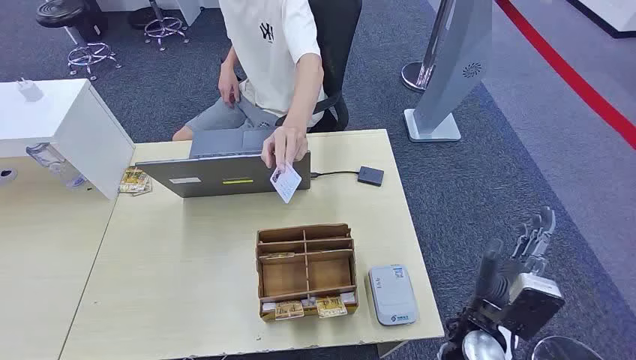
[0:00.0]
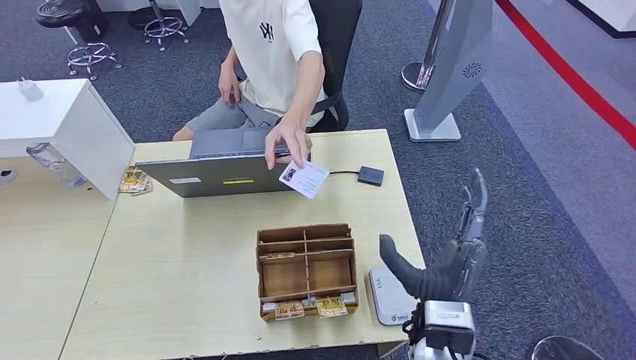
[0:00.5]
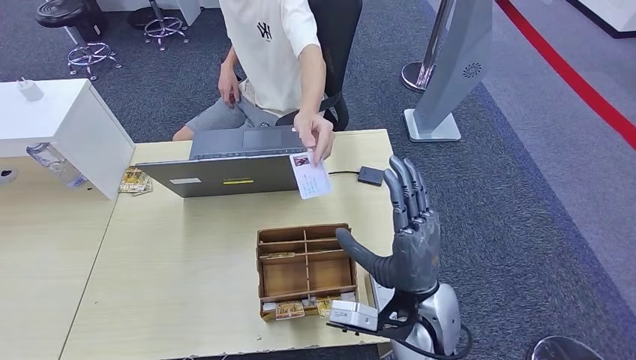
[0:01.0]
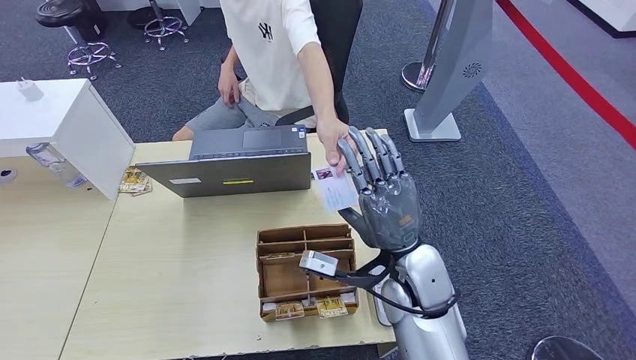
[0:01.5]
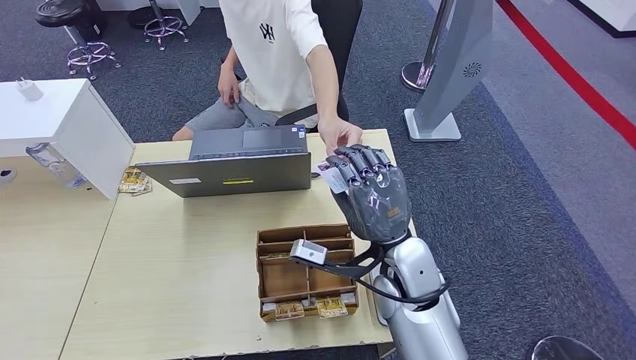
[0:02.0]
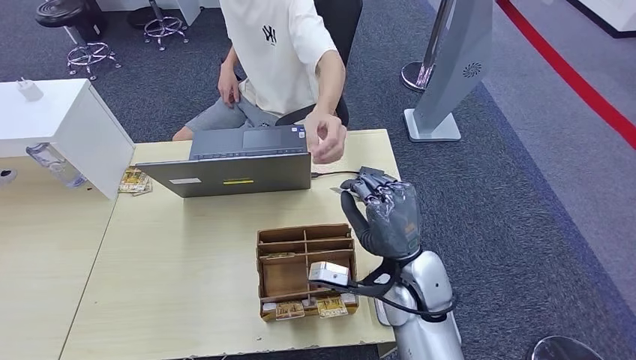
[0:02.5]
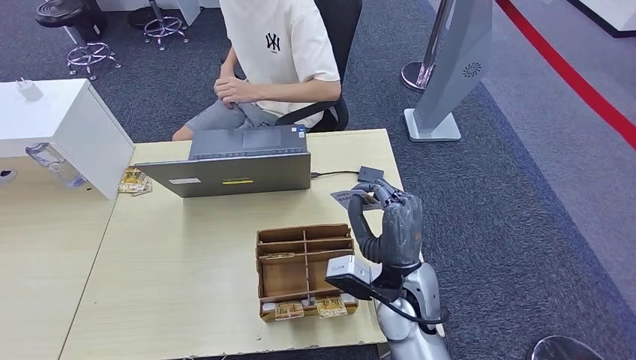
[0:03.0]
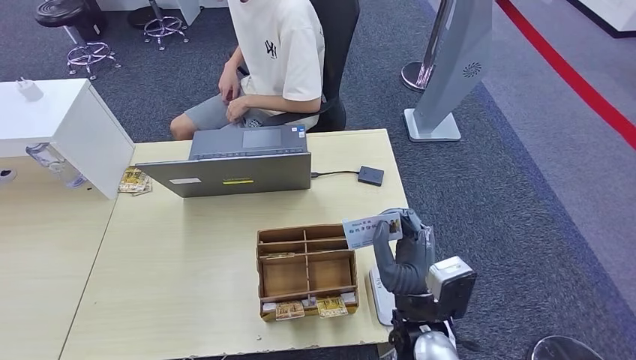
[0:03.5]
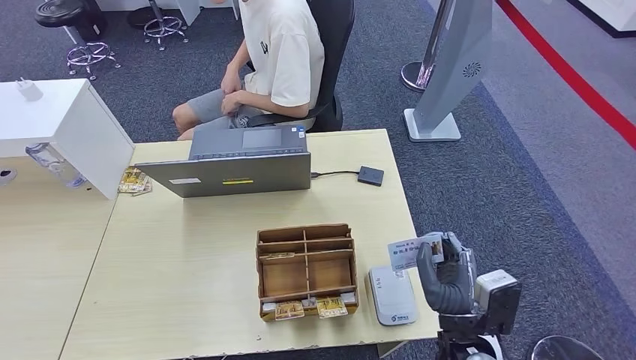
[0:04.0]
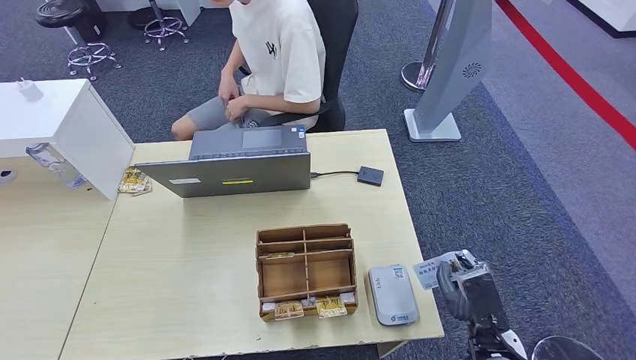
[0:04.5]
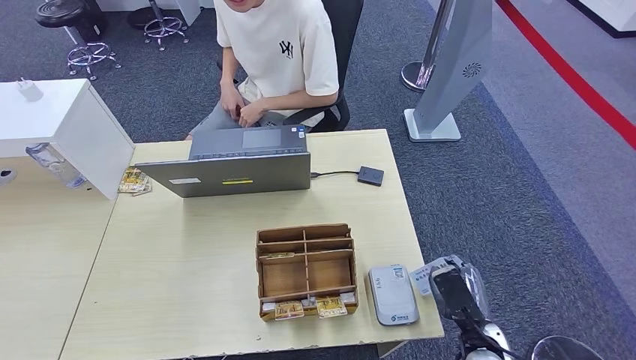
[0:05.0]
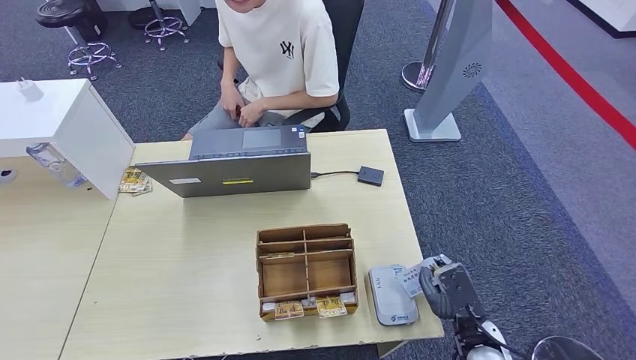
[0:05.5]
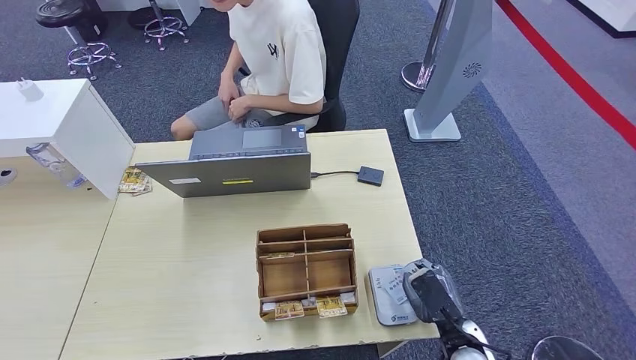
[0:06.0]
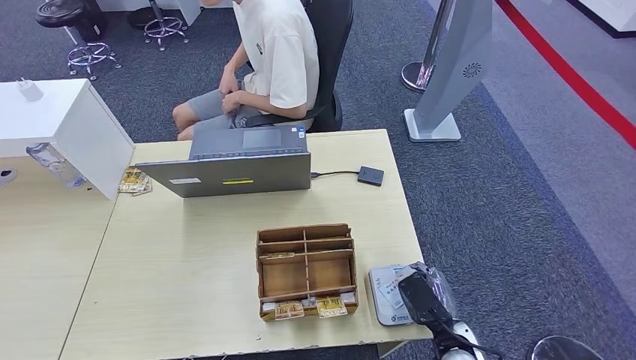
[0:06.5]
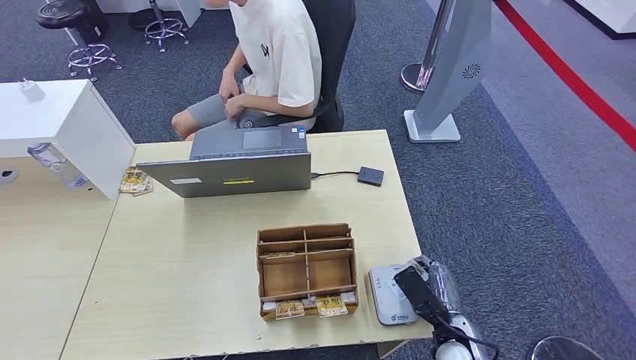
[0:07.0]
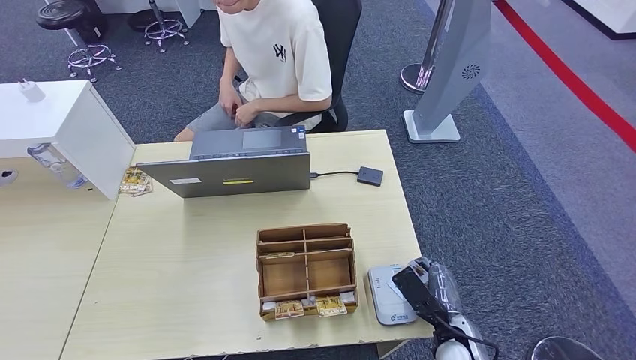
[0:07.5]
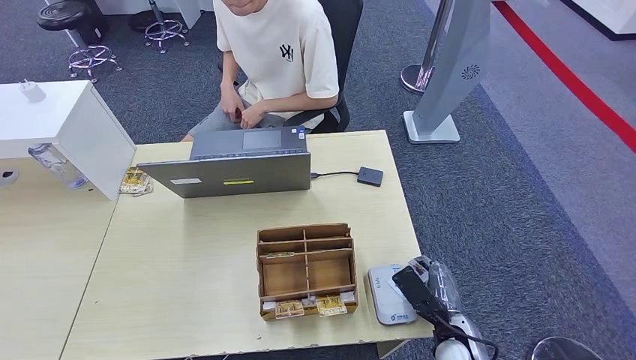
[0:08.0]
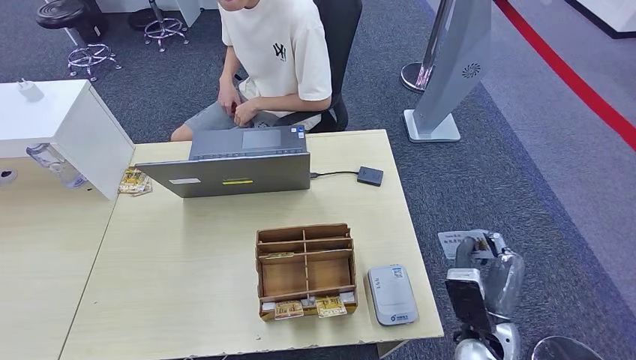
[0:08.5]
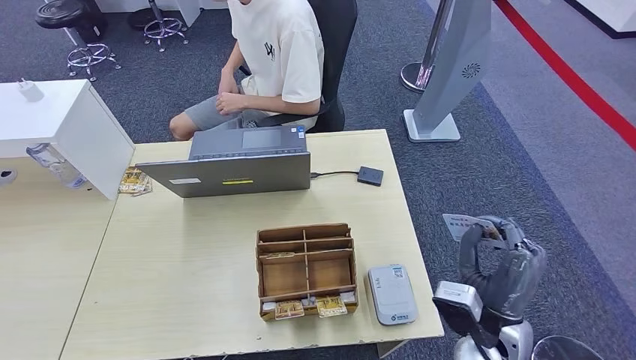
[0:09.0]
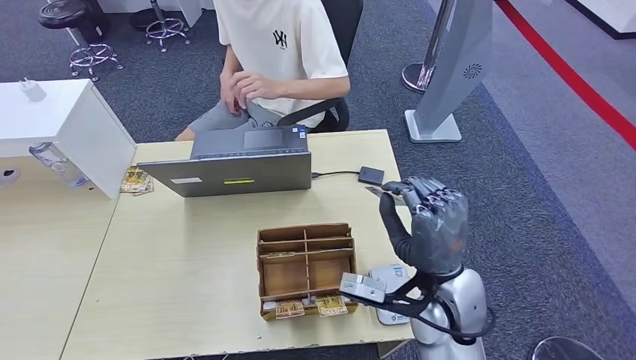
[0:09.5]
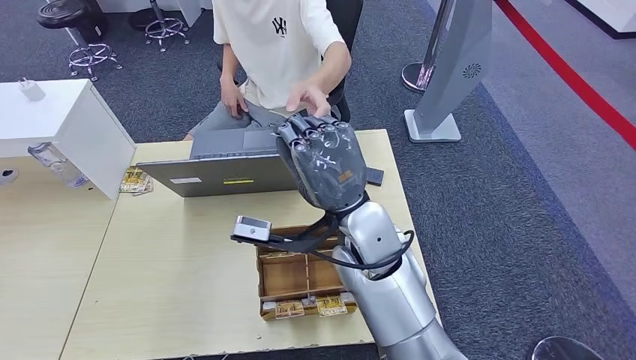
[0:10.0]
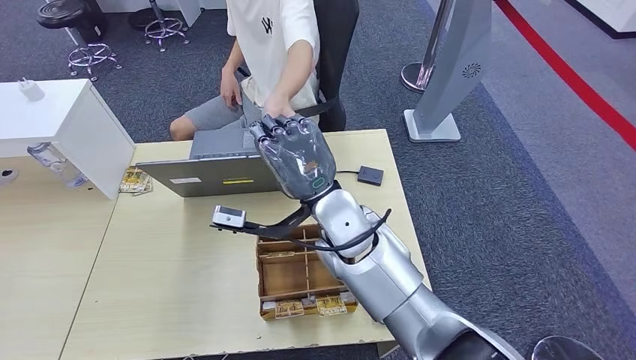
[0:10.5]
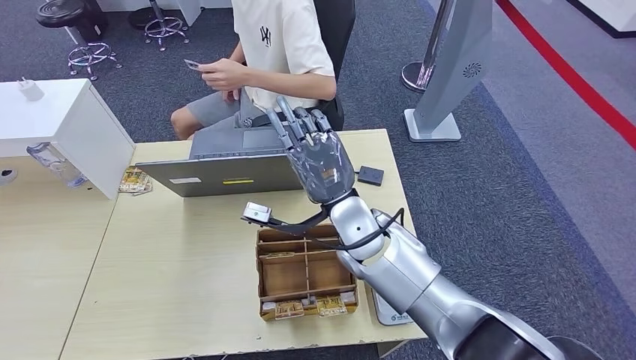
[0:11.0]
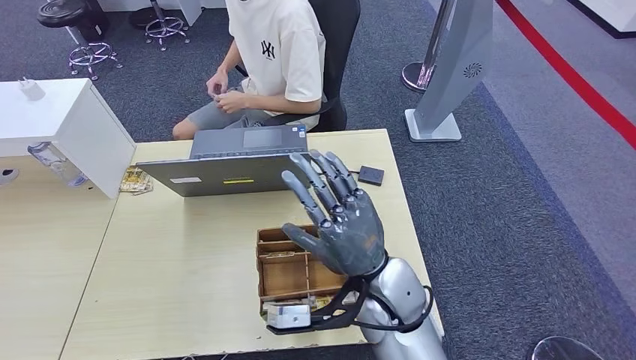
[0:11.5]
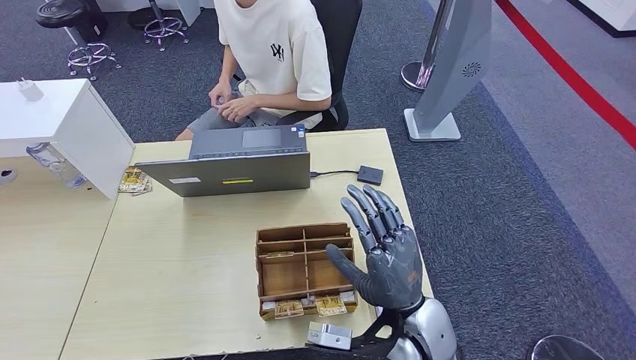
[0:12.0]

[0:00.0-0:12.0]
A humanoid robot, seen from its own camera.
Step, 0:00.0 to 0:03.0: Take the ID card from the person's hand.
Step, 0:03.5 to 0:09.0: Place the ID card on the card reader.
Step, 0:09.5 to 0:11.5: Hand the ID card to the person.
0:02.0 to 0:04.0: The right hand is displaced backward, to the right and downward by roughly 15 cm.
0:04.0 to 0:06.0: The right hand heads downward, covering about 10 cm.
0:06.0 to 0:08.0: The hands move only a little.
0:08.0 to 0:10.0: The right hand travels upward, to the left and forward by roughly 35 cm. Meanwhile the left hand is displaced forward by about 5 cm.
0:10.0 to 0:12.0: The right hand goes approximately 15 cm downward, backward and to the right.

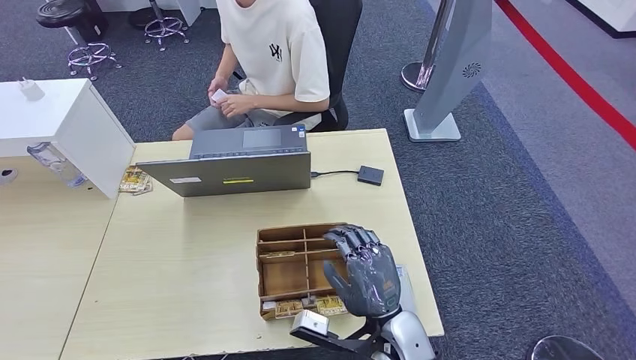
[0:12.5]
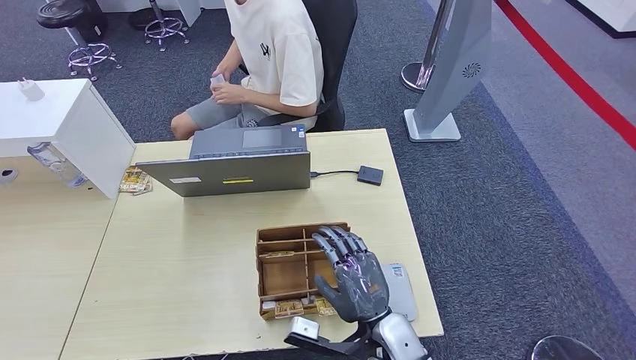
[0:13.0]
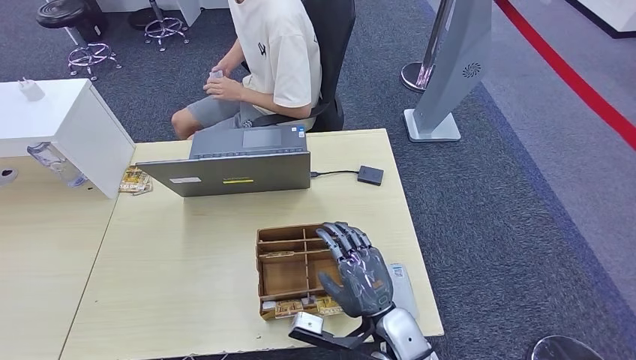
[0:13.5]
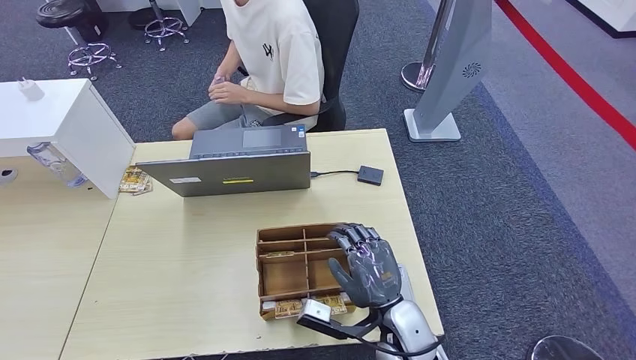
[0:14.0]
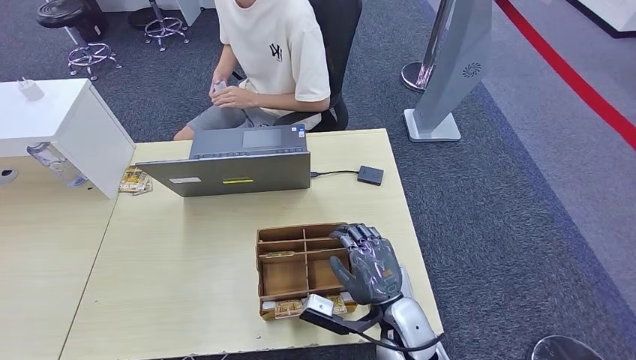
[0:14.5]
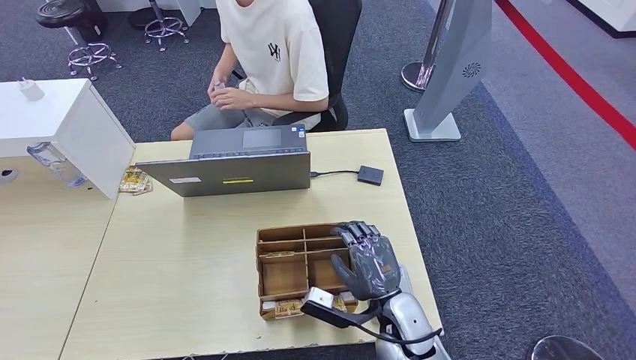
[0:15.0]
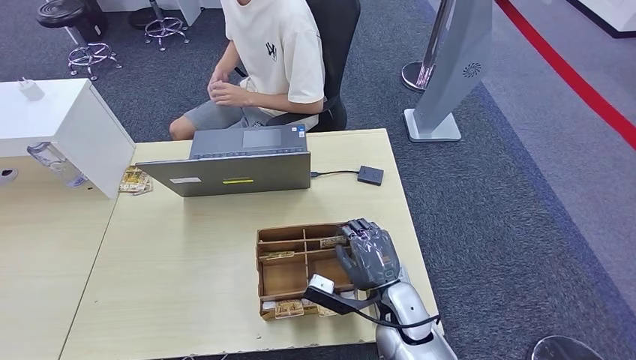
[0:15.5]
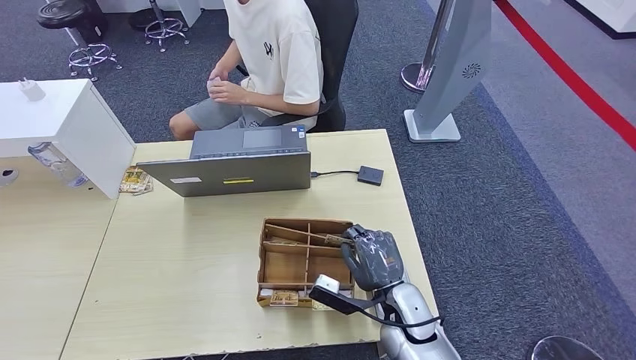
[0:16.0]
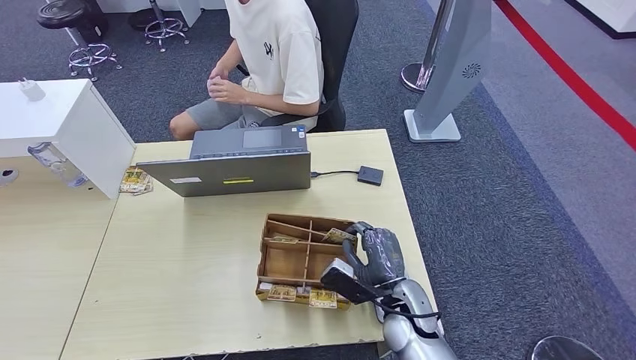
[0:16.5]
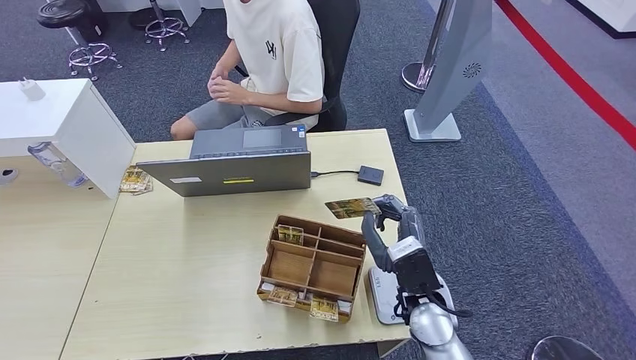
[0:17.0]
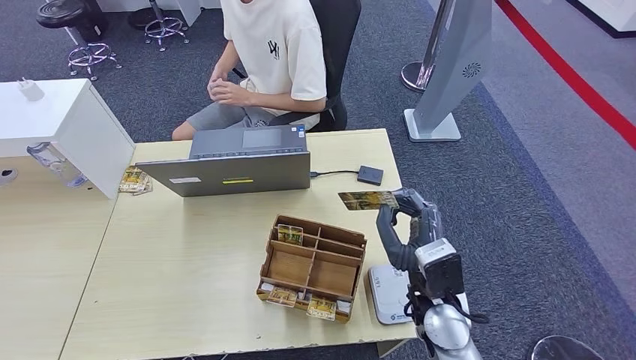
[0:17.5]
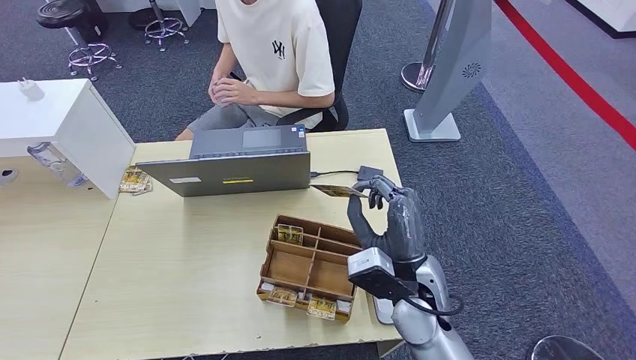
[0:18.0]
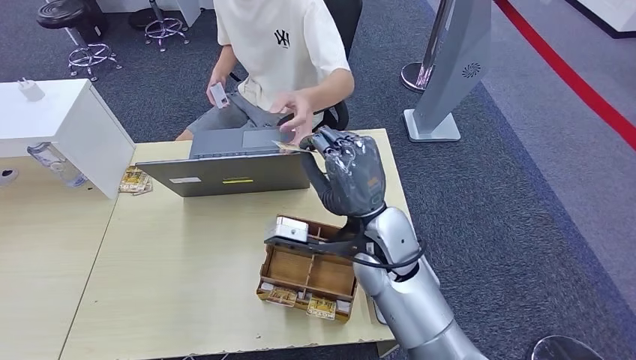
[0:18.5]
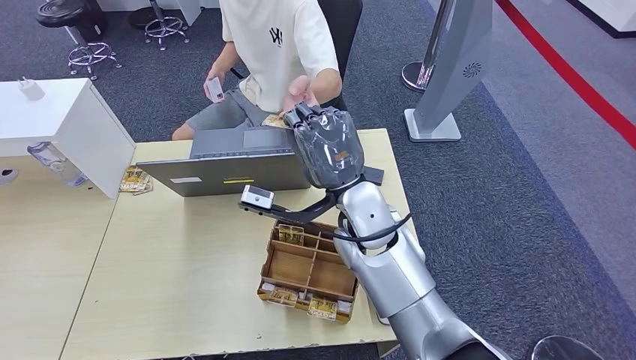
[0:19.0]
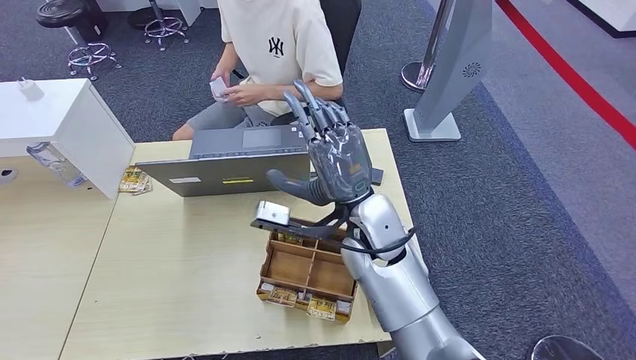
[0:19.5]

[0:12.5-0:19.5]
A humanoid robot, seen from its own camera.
Step, 0:15.0 to 0:17.0: Pick up the room key from the key card box.
Step, 0:18.0 to 0:19.5: Hand the room key to the person.
0:12.5 to 0:14.5: The hands stay close to where they were, moving slightly.
0:14.5 to 0:16.0: The hands stay close to where they were, moving slightly.
0:16.0 to 0:17.5: The right hand shifts roughly 10 cm upward.
0:17.5 to 0:19.5: The right hand is displaced to the left, forward and upward by about 15 cm.
